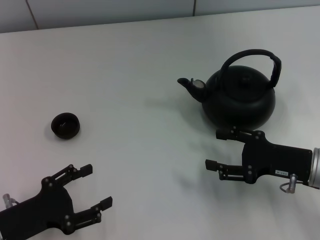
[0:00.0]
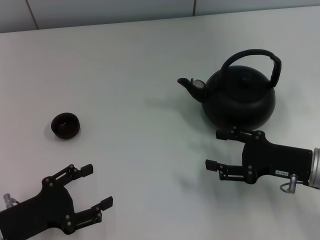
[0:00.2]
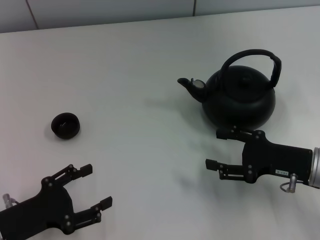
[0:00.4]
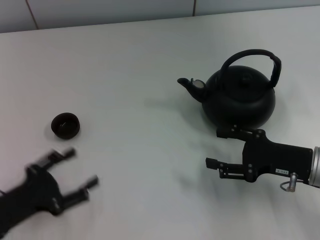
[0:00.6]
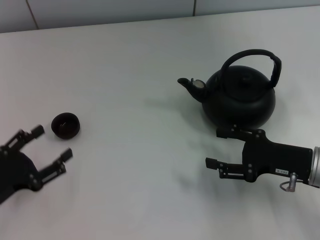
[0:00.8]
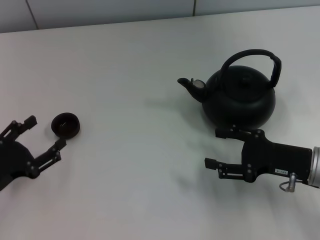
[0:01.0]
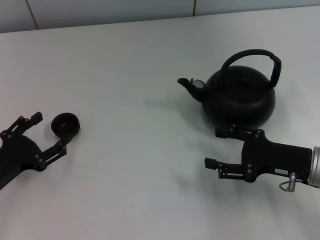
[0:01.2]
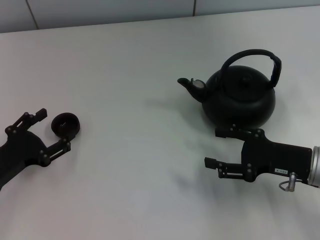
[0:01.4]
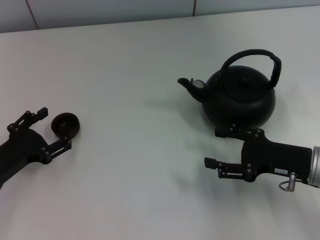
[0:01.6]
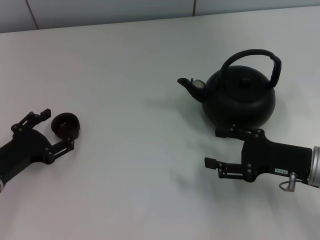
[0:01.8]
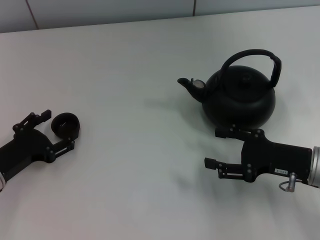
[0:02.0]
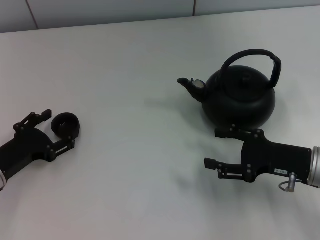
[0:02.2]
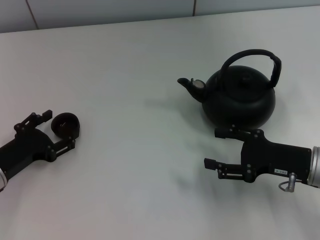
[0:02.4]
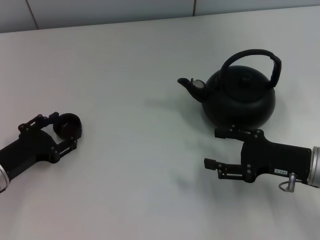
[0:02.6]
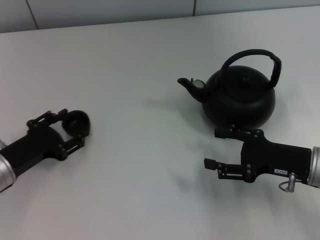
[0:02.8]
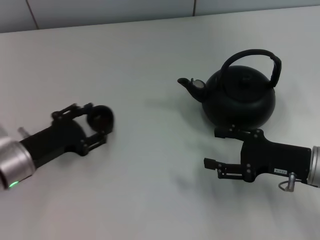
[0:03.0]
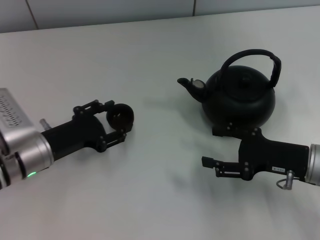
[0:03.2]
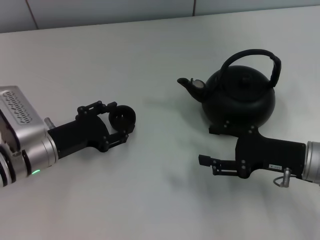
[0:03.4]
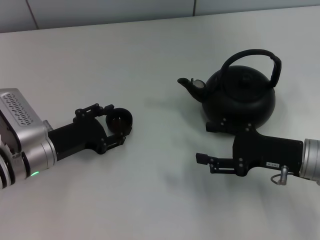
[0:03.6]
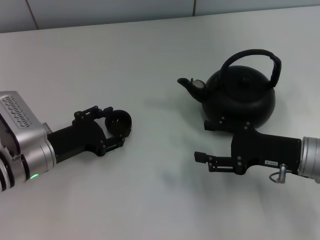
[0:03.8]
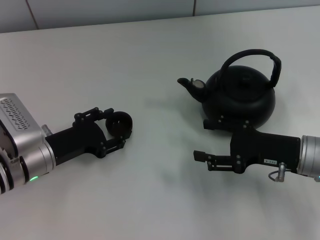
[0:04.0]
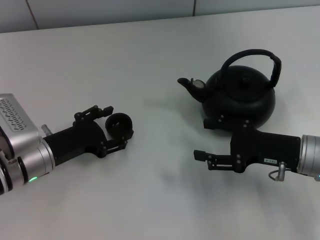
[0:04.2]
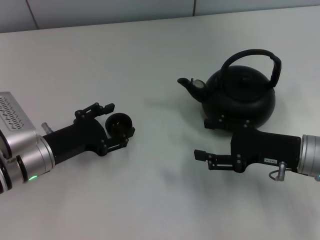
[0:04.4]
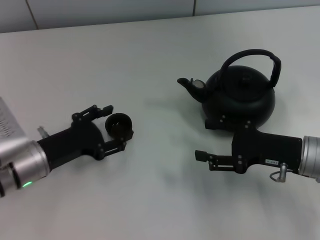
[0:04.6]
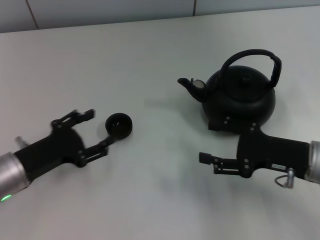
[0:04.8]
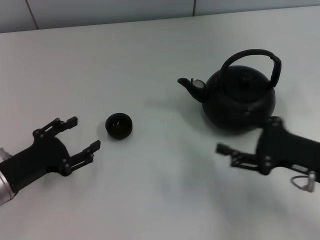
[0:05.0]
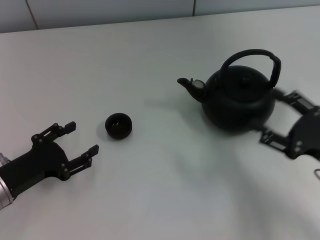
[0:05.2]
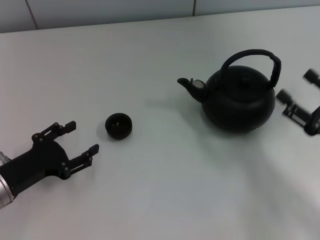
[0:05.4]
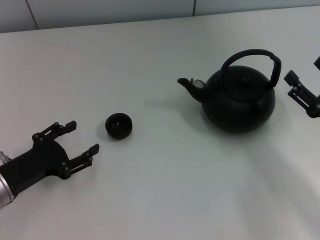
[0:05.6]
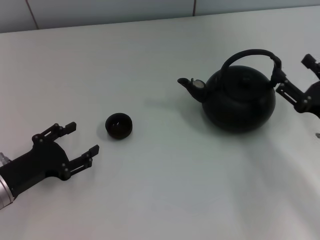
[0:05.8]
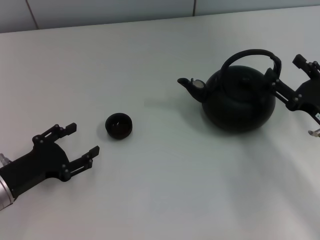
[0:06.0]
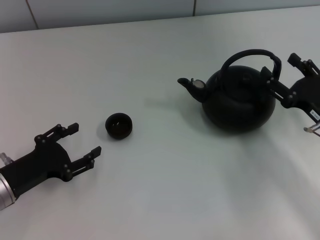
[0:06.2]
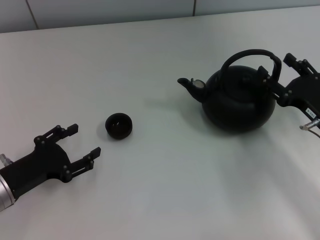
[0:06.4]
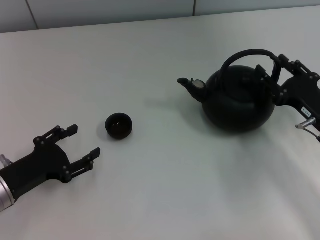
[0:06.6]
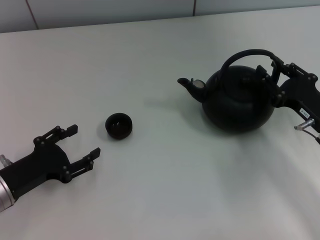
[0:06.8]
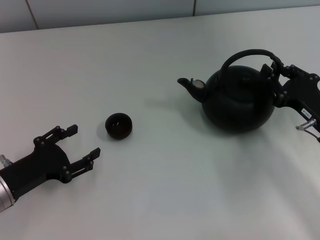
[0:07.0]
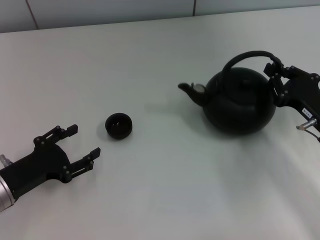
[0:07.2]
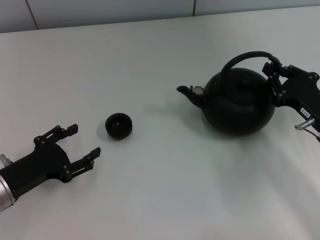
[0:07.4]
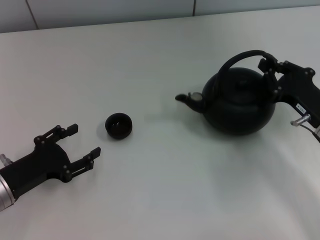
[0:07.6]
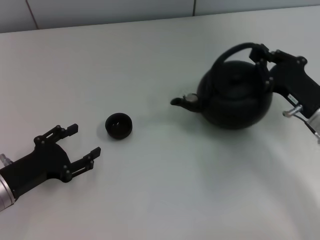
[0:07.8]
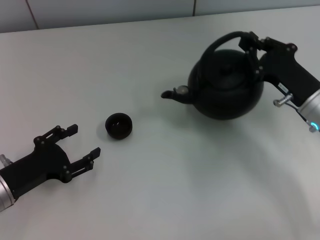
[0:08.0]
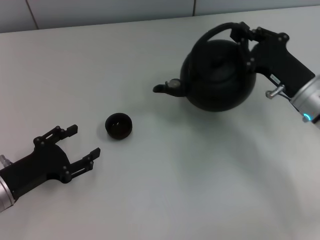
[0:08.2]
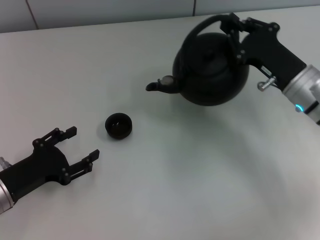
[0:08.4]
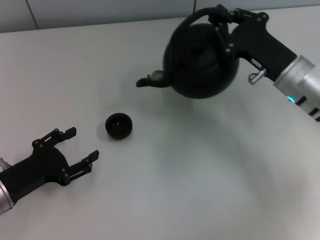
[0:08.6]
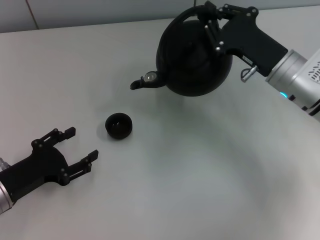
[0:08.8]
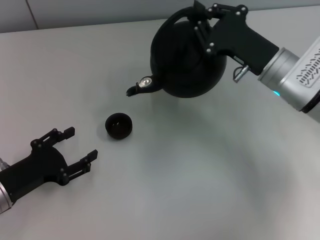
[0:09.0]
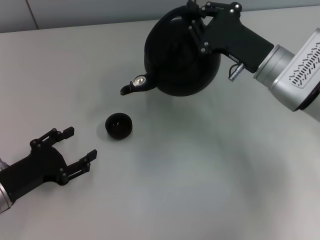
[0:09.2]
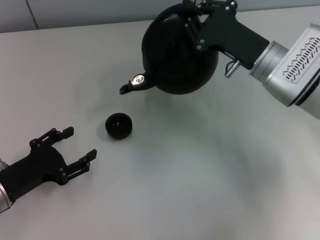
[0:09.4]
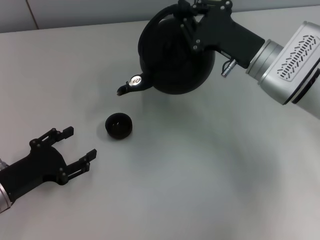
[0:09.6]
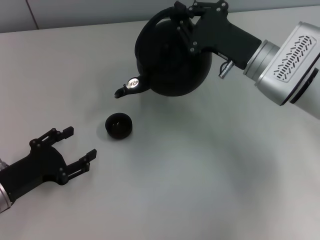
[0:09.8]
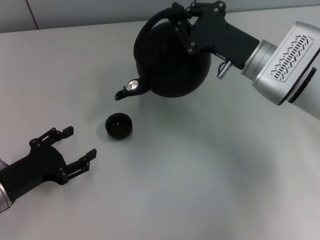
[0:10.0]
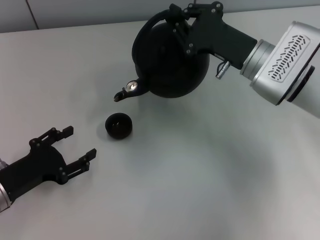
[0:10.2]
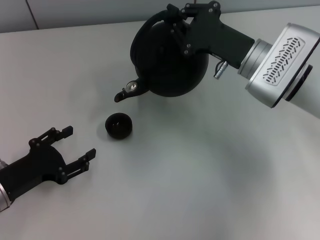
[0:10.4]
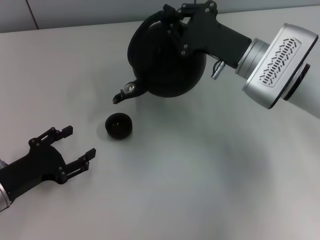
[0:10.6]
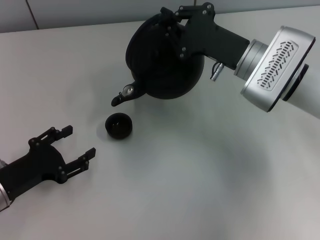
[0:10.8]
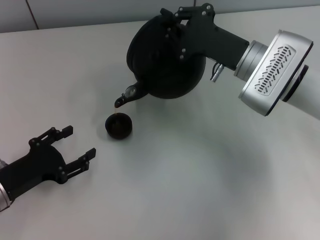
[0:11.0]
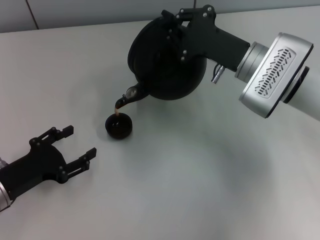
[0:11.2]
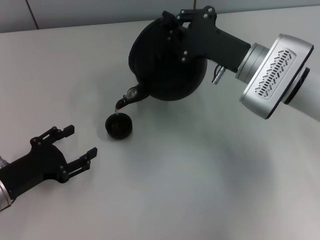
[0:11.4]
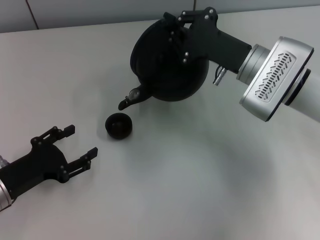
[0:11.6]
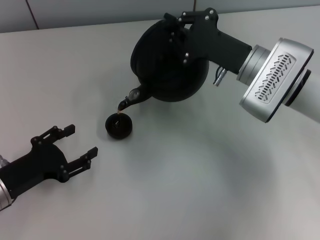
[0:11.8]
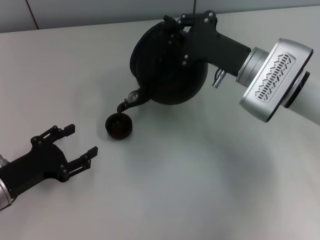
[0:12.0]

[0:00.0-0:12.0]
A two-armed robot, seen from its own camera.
Task of the whole recording: Grasp the handle of the teapot with one hand and pour tea into the teacup.
Step, 0:00.0 to 0:02.8: Pick up the teacup with the left gripper.
Step, 0:03.0 to 0:04.6: Place the teacup in the center of view with the left gripper.
Step, 0:04.8 to 0:07.8: Pick up the teapot with the right gripper.
0:00.0 to 0:01.6: The left gripper moves forward, about 5 cm.
0:01.6 to 0:03.0: The left gripper changes place by approximately 5 cm, and closes up.
0:03.0 to 0:04.4: The left gripper opens its fingers.
0:04.4 to 0:06.0: The left gripper travels to the left and backward by approximately 10 cm.
0:06.0 to 0:07.6: The right gripper closes up.
0:07.6 to 0:09.0: The right gripper travels forward, to the left and upward by about 10 cm.
0:09.0 to 0:12.0: The grippers stay close to where they were, moving slightly.

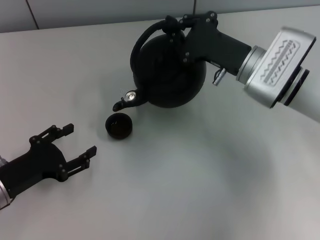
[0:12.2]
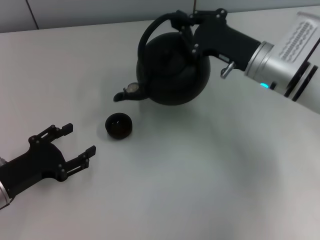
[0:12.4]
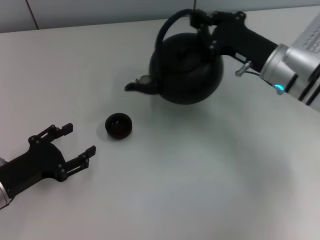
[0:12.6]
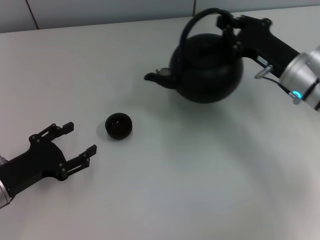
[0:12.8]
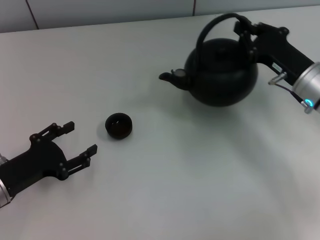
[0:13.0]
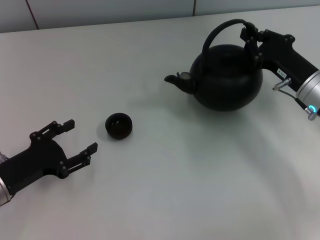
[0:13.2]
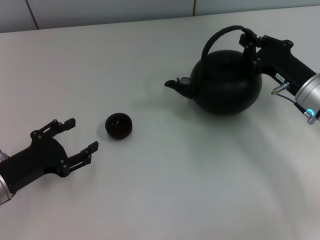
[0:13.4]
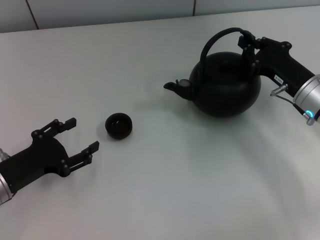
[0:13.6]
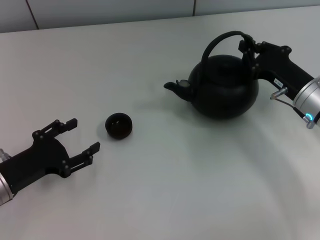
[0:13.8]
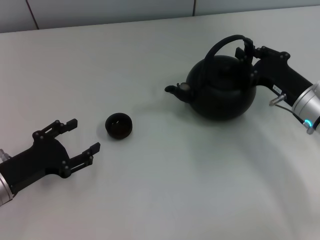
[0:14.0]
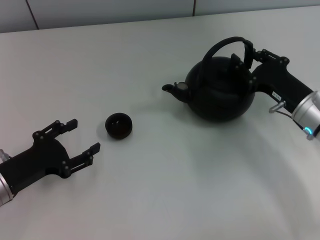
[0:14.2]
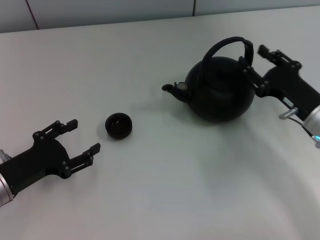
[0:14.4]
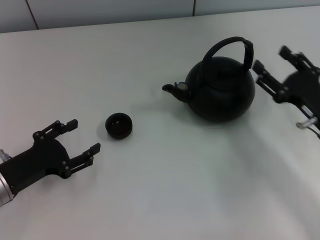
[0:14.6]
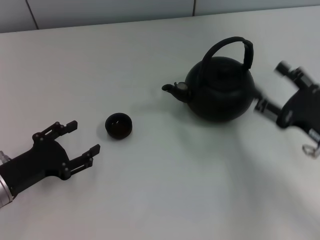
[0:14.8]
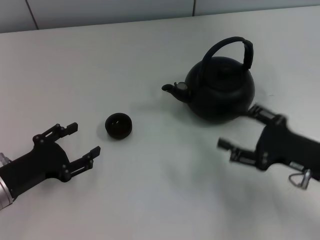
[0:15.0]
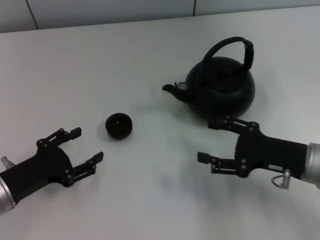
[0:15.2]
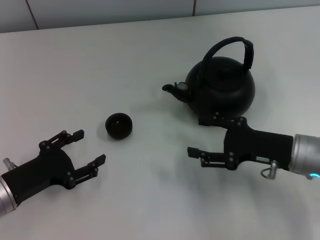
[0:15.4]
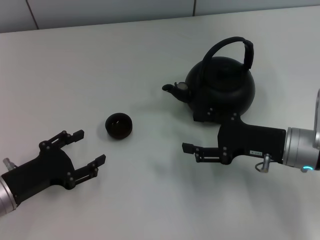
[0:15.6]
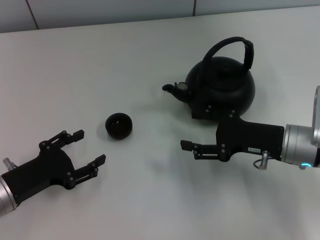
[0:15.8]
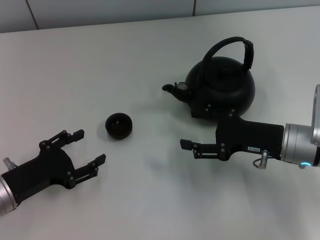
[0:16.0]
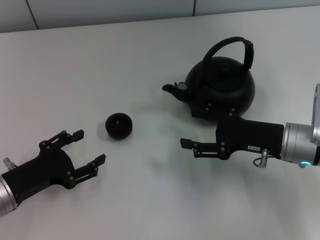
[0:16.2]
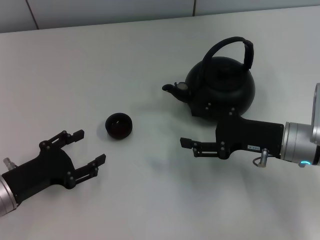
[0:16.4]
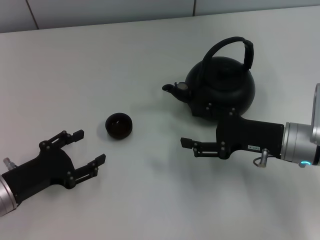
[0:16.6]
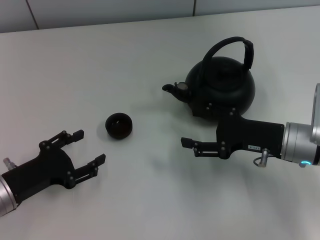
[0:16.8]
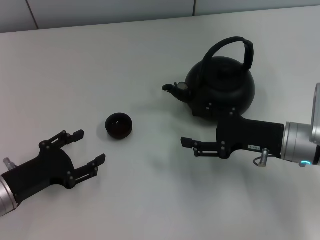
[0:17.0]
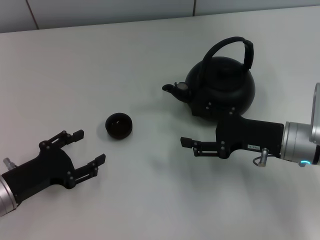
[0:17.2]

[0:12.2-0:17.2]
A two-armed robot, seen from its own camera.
Task of the whole recording: Grasp the handle of the teapot with one hand and pour tea into the teacup.
Step, 0:12.6 to 0:14.4: Put down the teapot with the right gripper.
0:12.2 to 0:13.8: The right gripper heads to the right, covering approximately 10 cm.
0:13.8 to 0:15.6: The right gripper is displaced backward by roughly 5 cm, and opens.
0:15.6 to 0:17.2: The two grippers keep their place.
